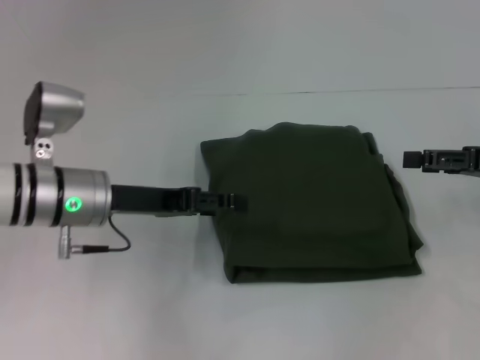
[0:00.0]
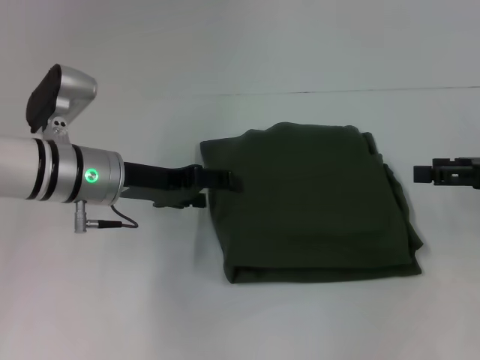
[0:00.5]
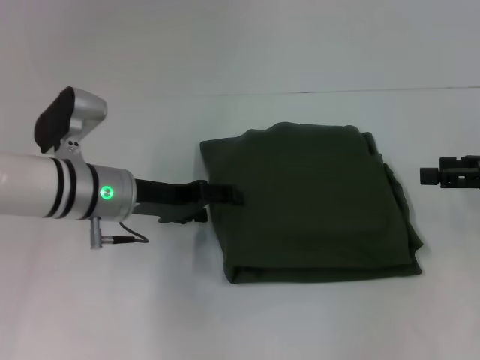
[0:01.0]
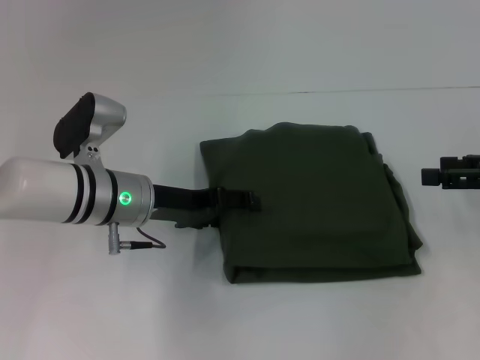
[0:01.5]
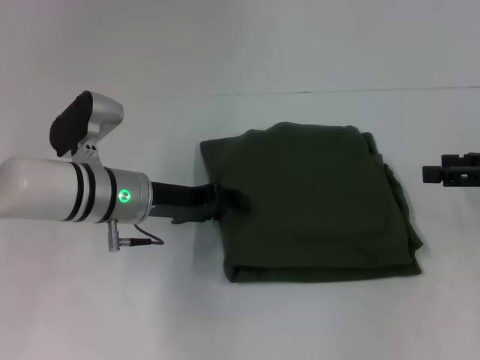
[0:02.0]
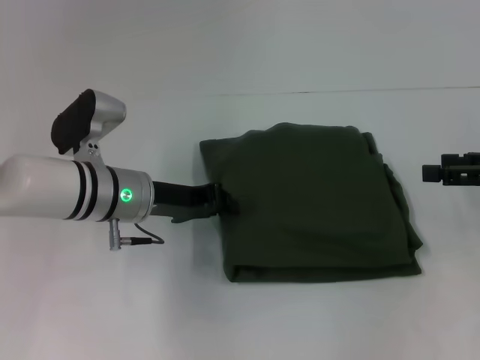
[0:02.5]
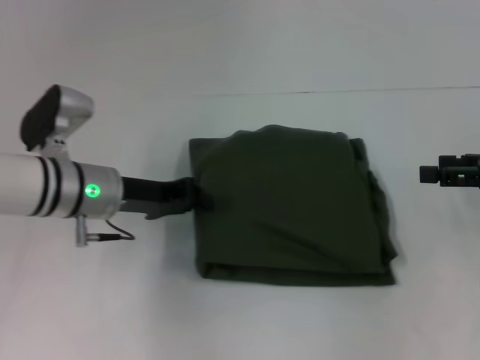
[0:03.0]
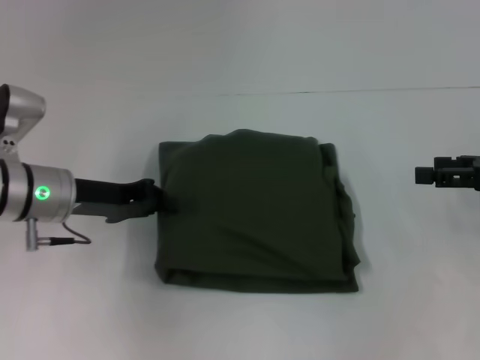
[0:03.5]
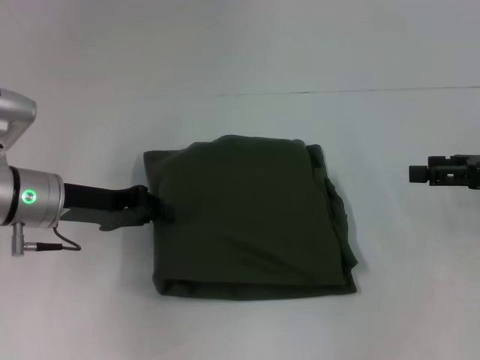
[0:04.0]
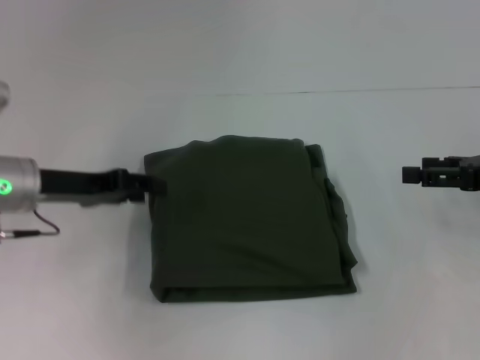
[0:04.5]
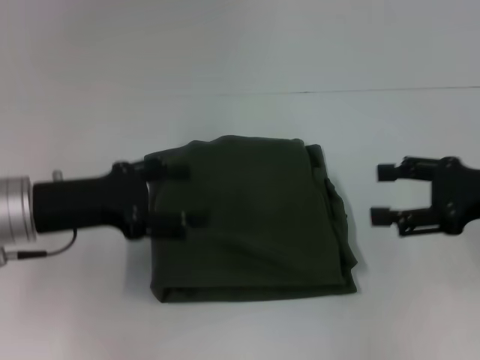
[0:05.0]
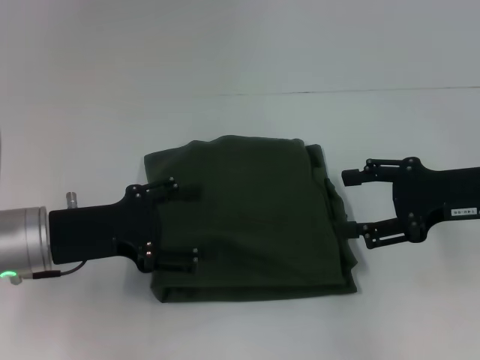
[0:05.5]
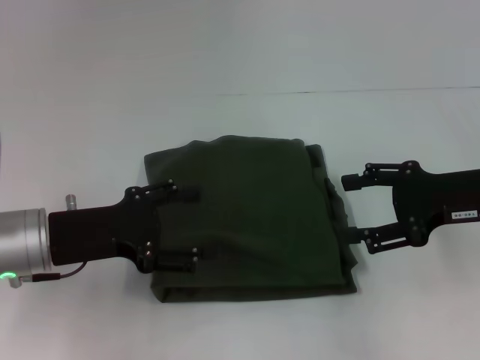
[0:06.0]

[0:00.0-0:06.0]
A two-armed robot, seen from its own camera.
0:00.0 to 0:02.0: The grippers make only small movements.
0:02.0 to 0:04.0: The left gripper moves to the left, roughly 10 cm, and closes up.
0:04.0 to 0:06.0: The left gripper is displaced backward by approximately 5 cm, and opens. Meanwhile the right gripper shifts roughly 5 cm to the left.

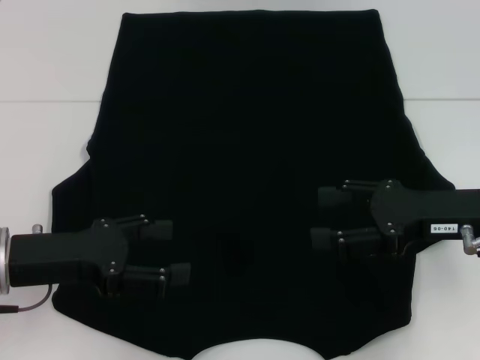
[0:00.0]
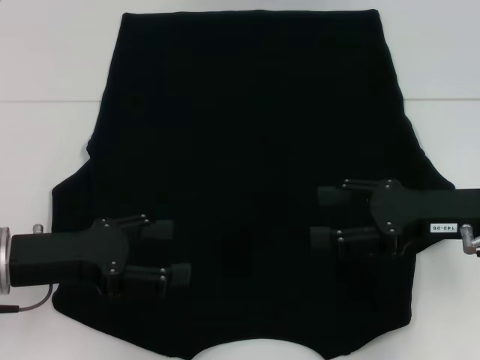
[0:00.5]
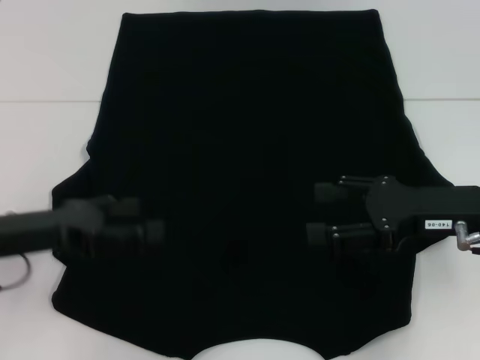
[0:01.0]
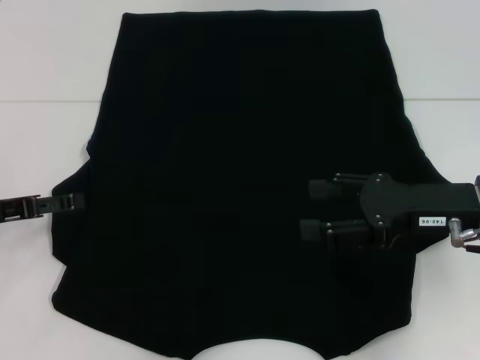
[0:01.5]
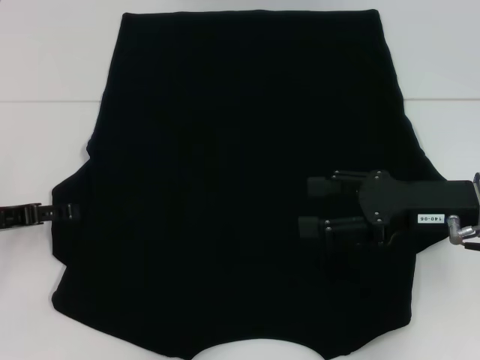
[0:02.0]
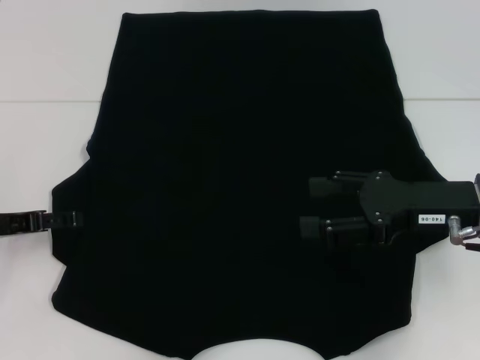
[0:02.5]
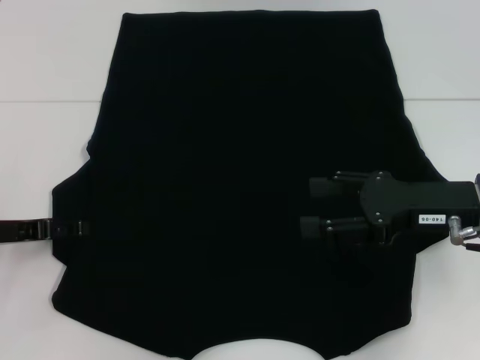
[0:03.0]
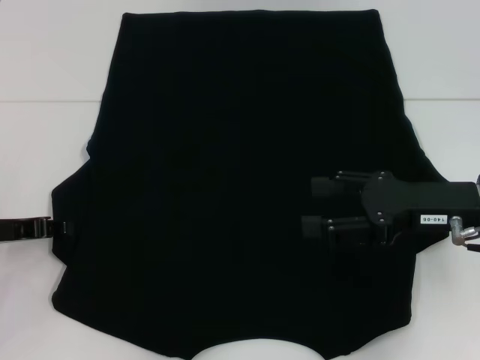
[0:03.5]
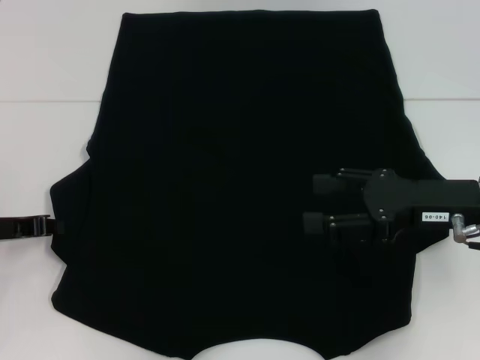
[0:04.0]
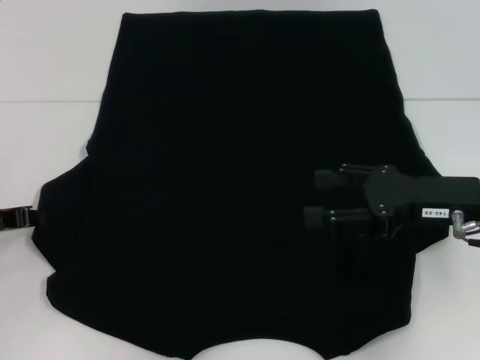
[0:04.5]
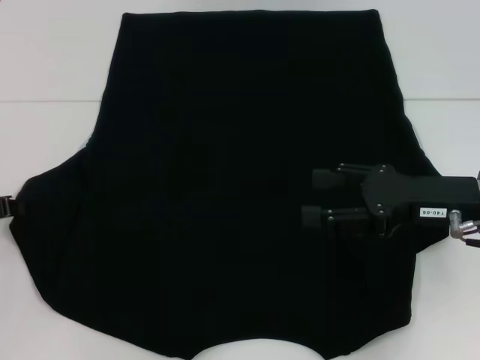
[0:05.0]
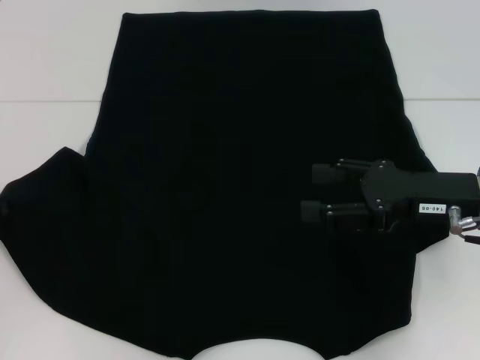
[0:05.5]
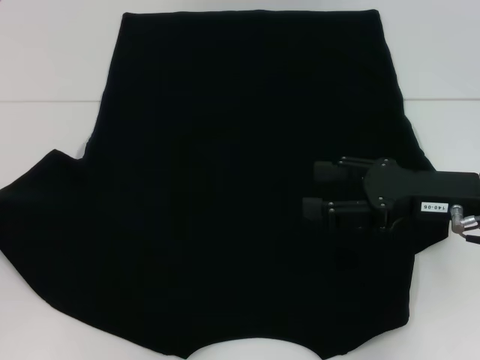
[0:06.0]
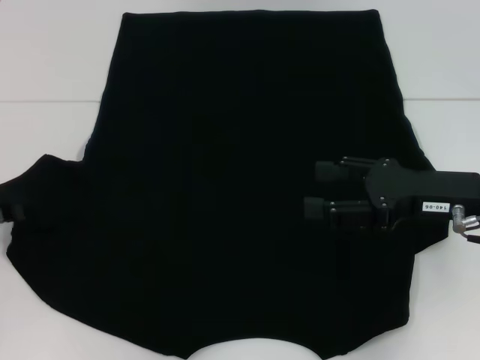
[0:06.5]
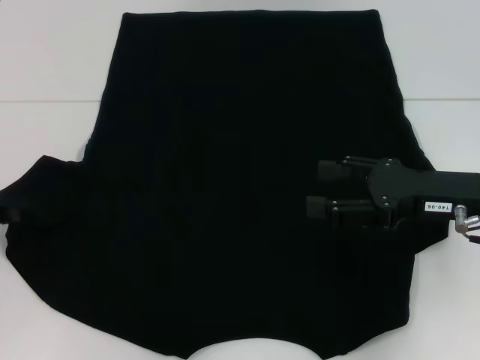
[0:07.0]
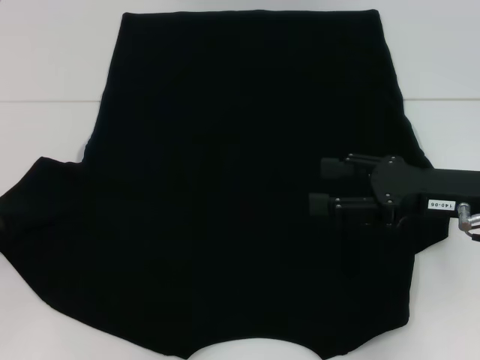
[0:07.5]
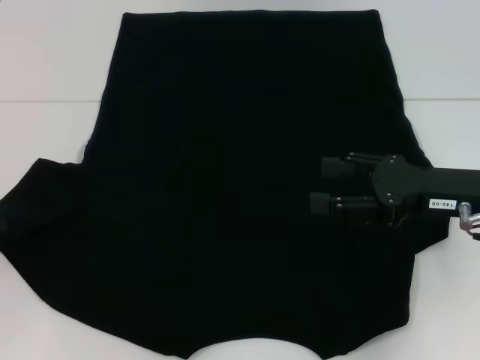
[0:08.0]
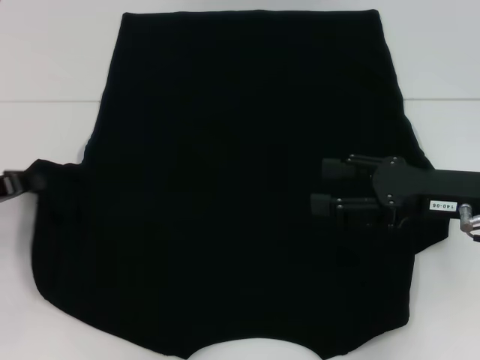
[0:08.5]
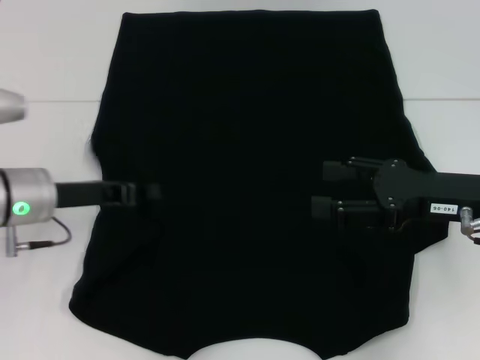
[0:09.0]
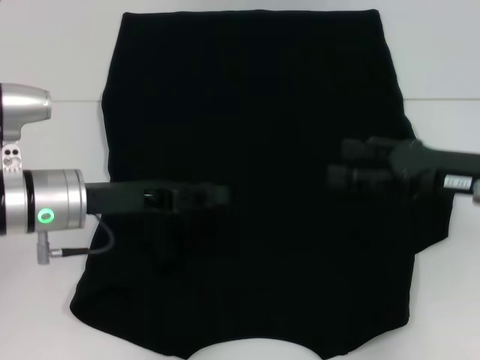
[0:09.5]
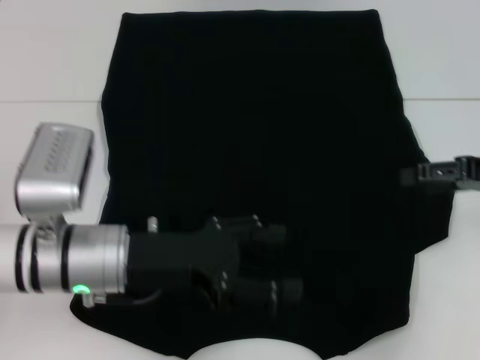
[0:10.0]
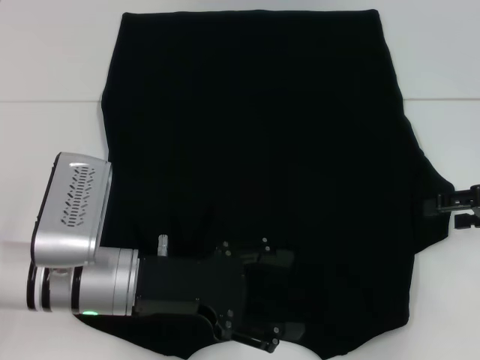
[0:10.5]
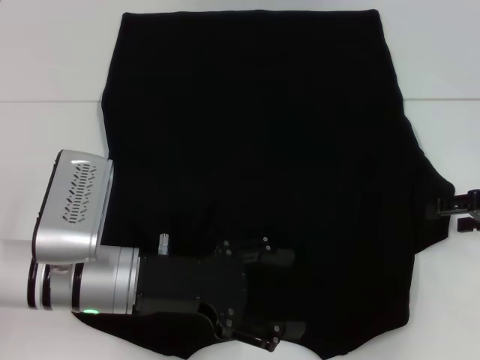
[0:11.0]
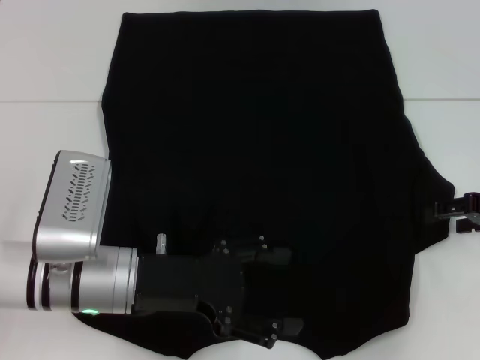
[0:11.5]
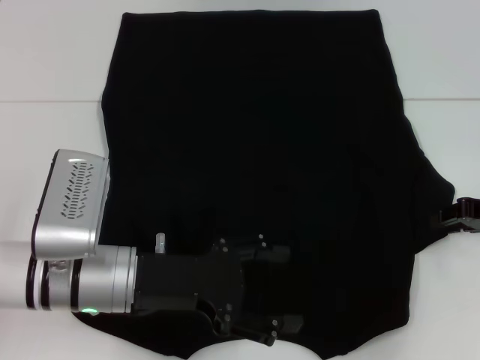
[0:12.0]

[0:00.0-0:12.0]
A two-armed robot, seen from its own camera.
Step, 0:00.0 to 0:09.0: Fold the bottom left sleeve with your left hand.
0:00.0 to 0:02.0: The left gripper heads to the left, covering roughly 5 cm.
0:02.0 to 0:04.0: The left gripper closes.
0:04.0 to 0:06.0: The left gripper moves to the left, some 5 cm.
0:06.0 to 0:08.0: The grippers move only a little.
0:08.0 to 0:10.0: The right gripper is displaced to the right by about 10 cm, while the left gripper goes roughly 20 cm to the right, and opens its fingers.
0:10.0 to 0:12.0: The right gripper is displaced downward by approximately 5 cm.

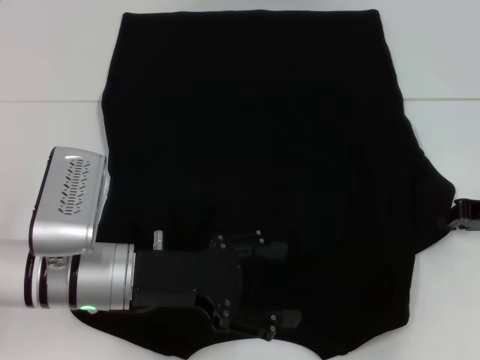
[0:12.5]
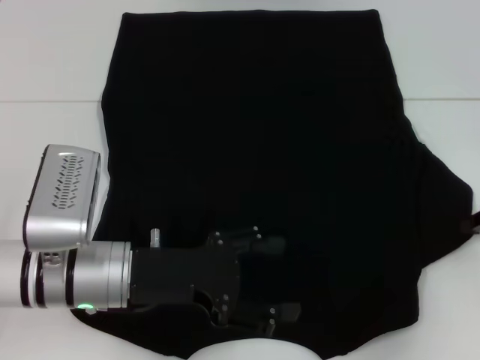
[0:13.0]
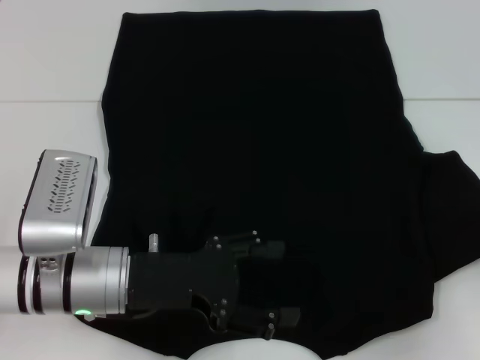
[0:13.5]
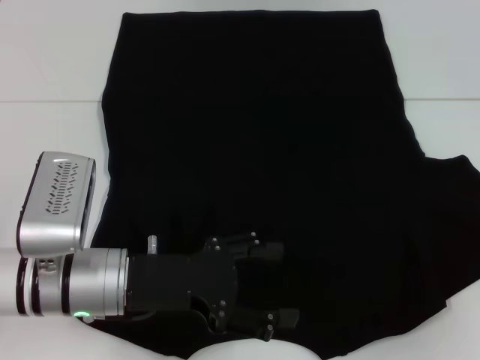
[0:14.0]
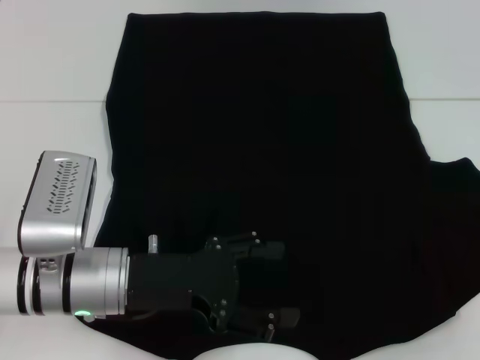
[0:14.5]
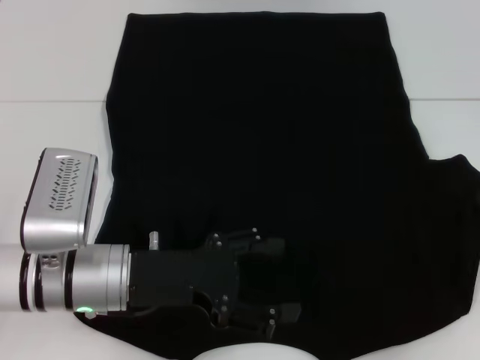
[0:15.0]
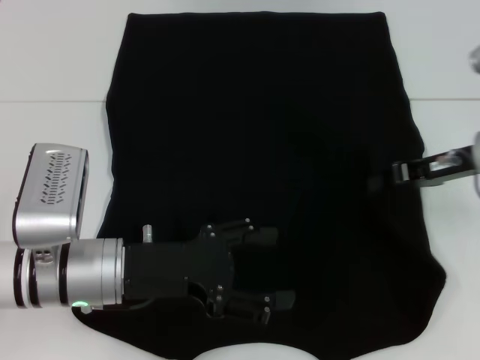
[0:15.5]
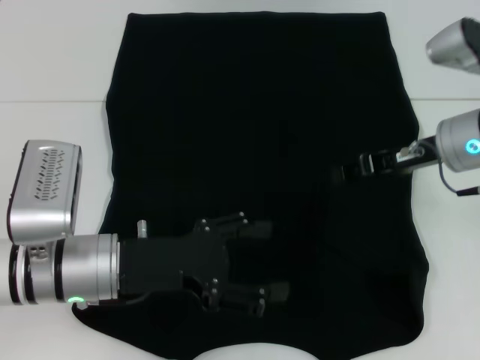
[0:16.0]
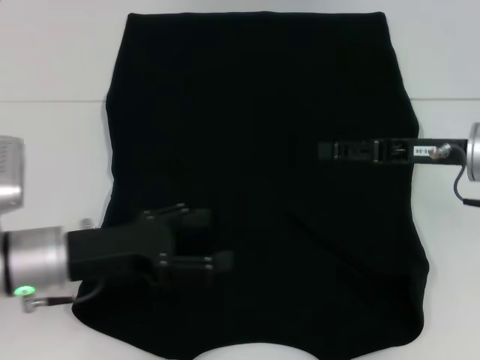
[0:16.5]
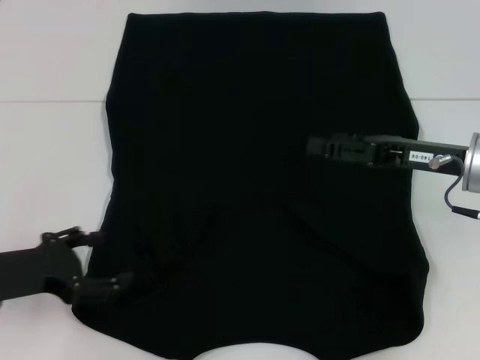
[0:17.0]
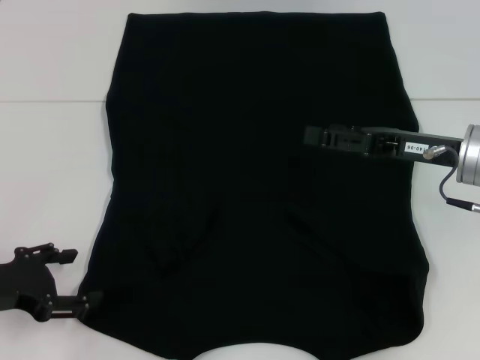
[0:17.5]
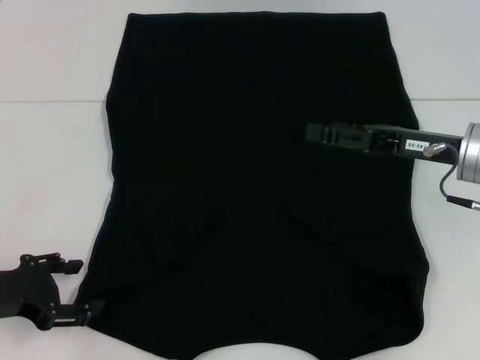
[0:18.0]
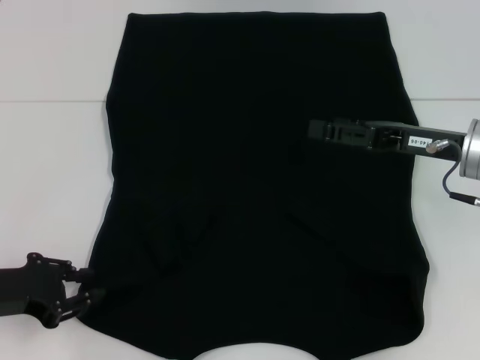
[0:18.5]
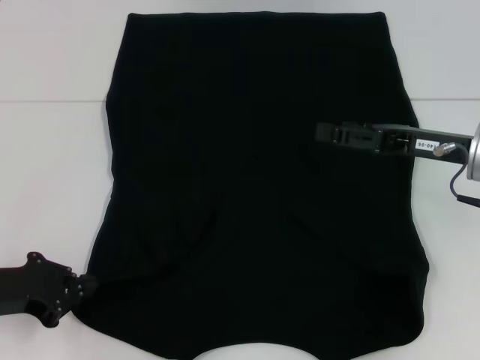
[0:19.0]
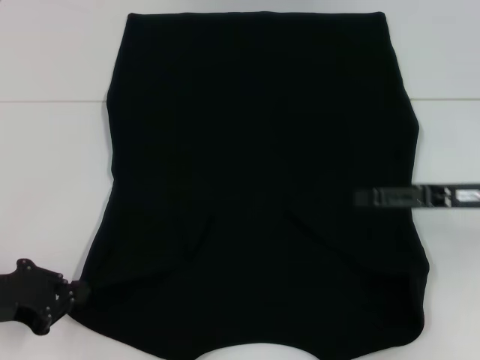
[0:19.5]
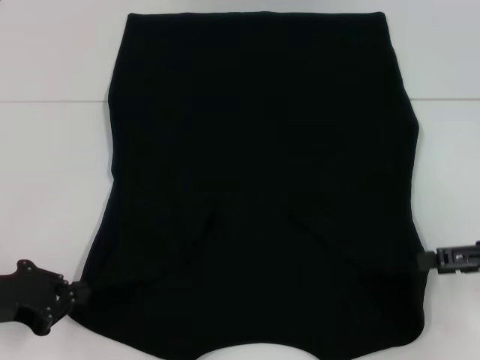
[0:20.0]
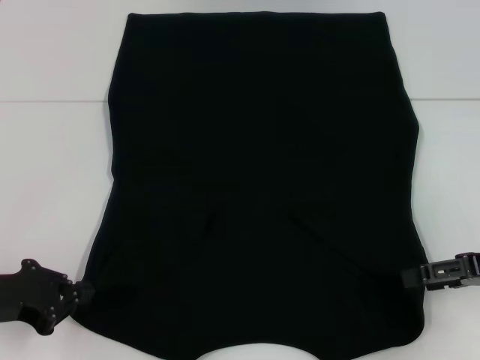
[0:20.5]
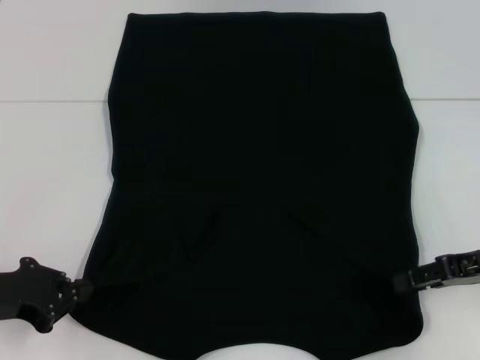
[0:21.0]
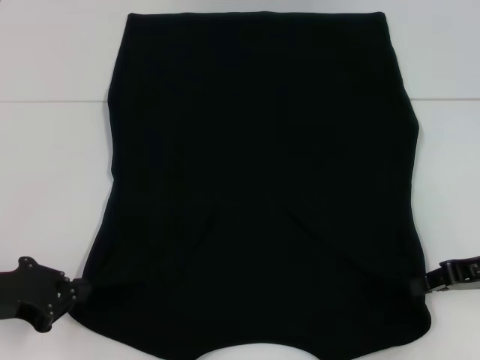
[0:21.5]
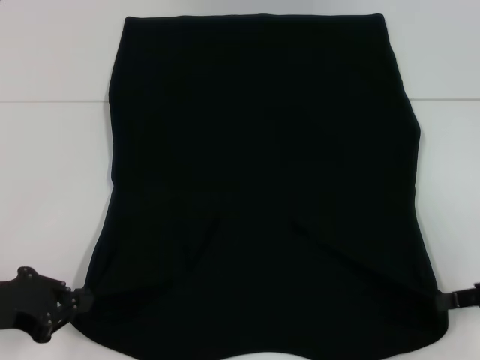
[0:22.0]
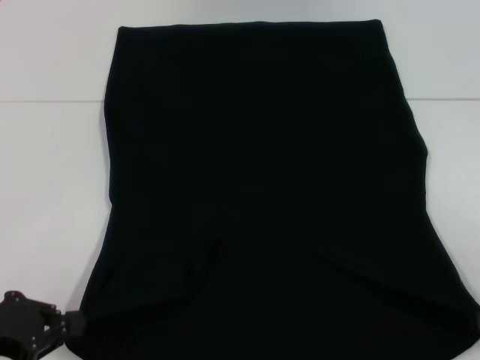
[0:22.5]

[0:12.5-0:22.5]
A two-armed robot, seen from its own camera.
Step, 0:12.5 to 0:16.0: Fold the bottom right sleeve with your right hand.
Step, 0:16.5 to 0:19.0: Grab the bottom left corner with your left hand.
Step, 0:19.5 to 0:21.5: Grab the bottom right corner with your right hand.
0:12.5 to 0:14.5: The right gripper goes roughly 10 cm to the right and backward.
0:14.5 to 0:16.5: The left gripper goes some 5 cm to the left, while the right gripper heads to the left, covering roughly 15 cm, and opens its fingers.
0:16.5 to 0:18.5: The left gripper goes approximately 10 cm to the left, and closes its fingers.
0:18.5 to 0:20.5: The right gripper travels to the right and backward by about 10 cm. The left gripper closes its fingers.
0:20.5 to 0:22.5: The right gripper shifts some 10 cm backward and to the right, and closes its fingers.
